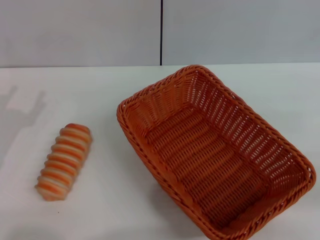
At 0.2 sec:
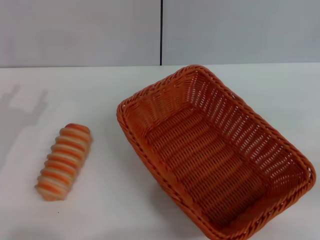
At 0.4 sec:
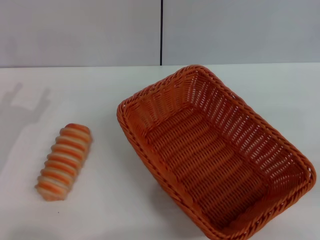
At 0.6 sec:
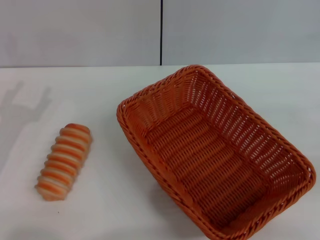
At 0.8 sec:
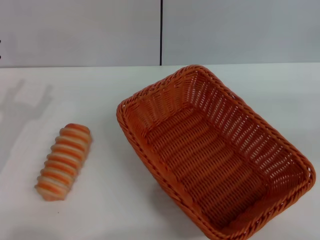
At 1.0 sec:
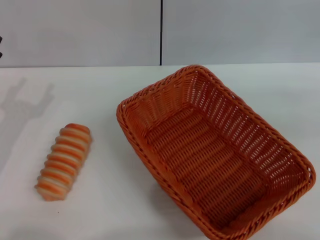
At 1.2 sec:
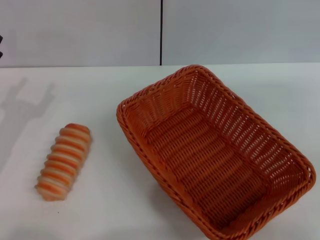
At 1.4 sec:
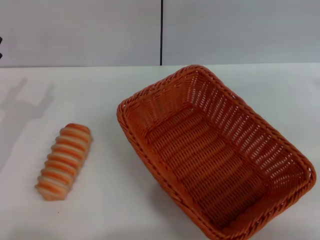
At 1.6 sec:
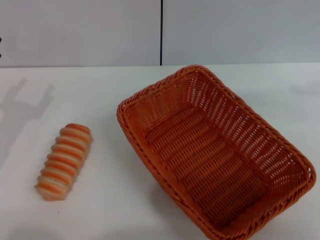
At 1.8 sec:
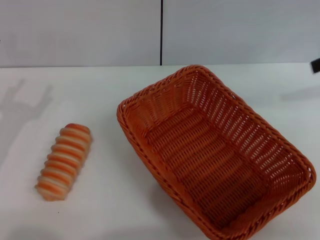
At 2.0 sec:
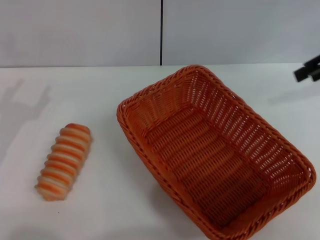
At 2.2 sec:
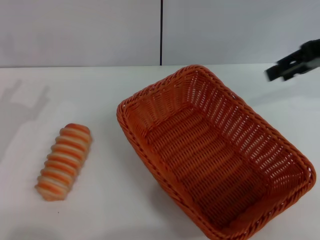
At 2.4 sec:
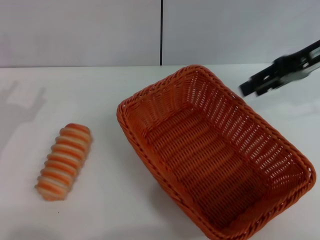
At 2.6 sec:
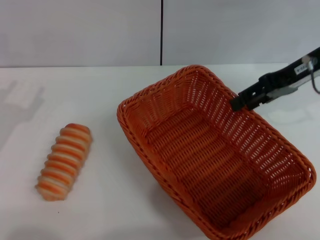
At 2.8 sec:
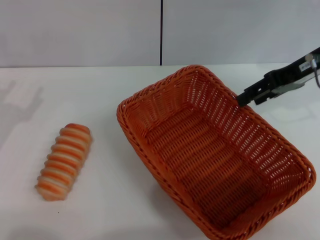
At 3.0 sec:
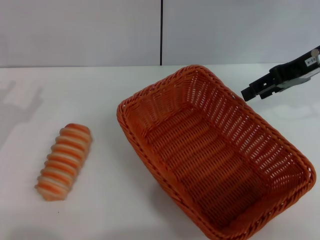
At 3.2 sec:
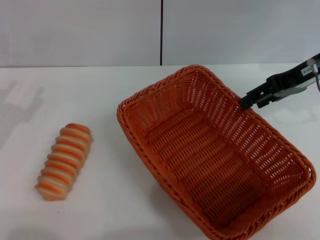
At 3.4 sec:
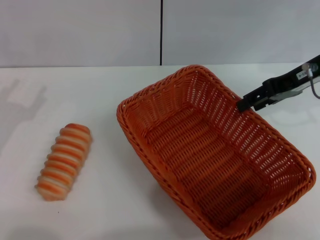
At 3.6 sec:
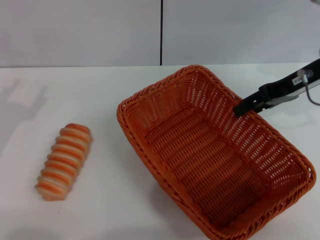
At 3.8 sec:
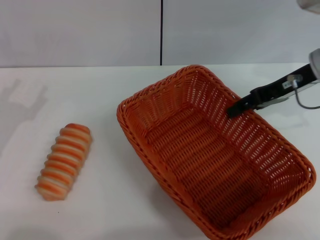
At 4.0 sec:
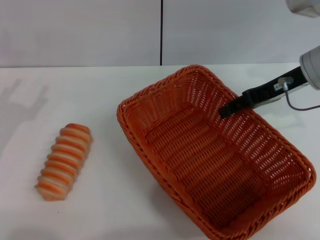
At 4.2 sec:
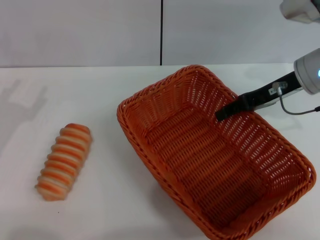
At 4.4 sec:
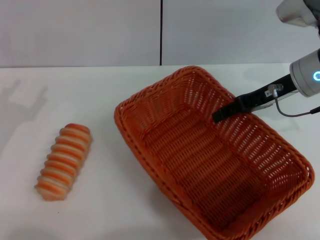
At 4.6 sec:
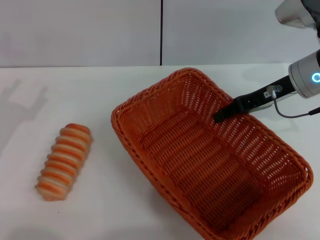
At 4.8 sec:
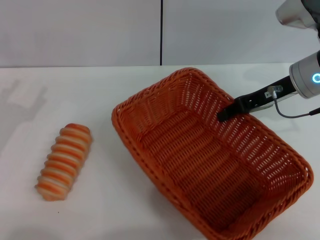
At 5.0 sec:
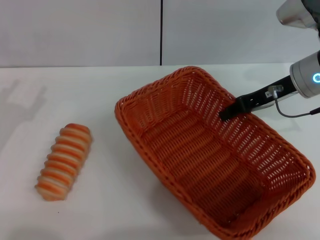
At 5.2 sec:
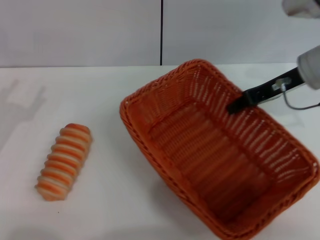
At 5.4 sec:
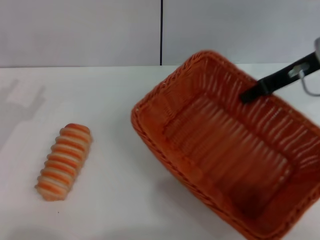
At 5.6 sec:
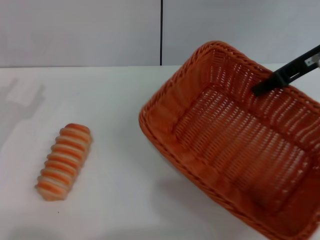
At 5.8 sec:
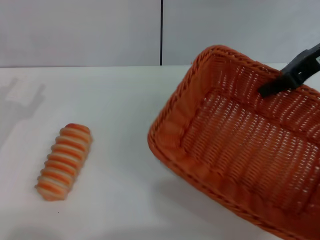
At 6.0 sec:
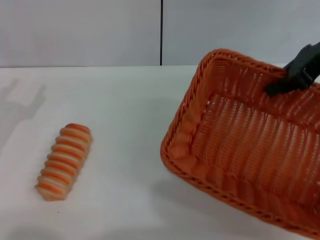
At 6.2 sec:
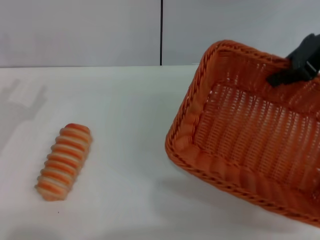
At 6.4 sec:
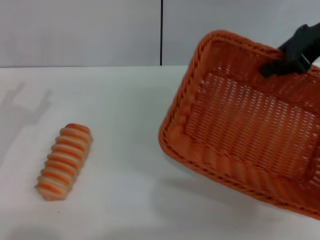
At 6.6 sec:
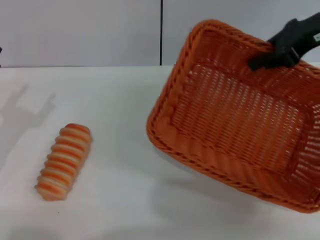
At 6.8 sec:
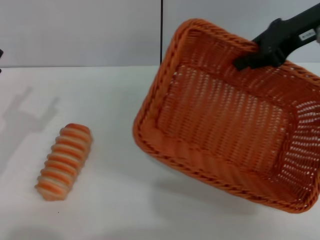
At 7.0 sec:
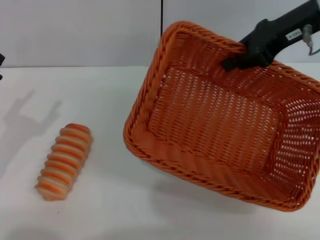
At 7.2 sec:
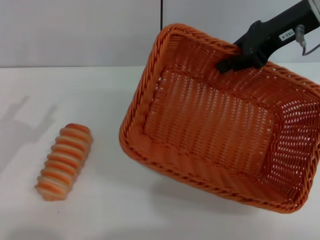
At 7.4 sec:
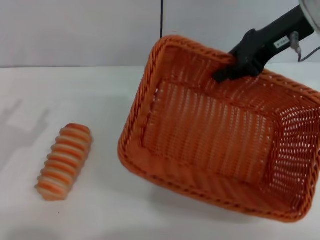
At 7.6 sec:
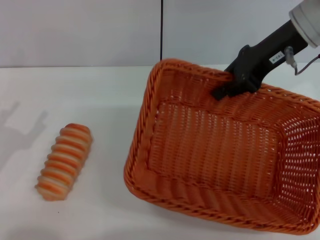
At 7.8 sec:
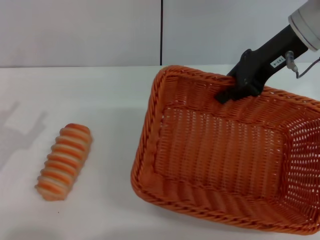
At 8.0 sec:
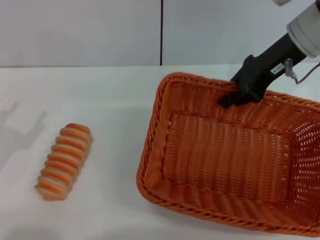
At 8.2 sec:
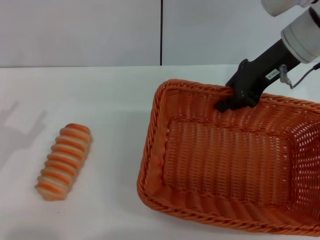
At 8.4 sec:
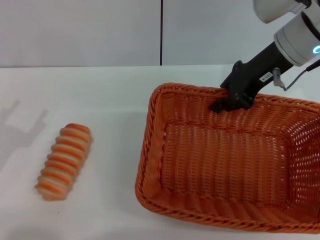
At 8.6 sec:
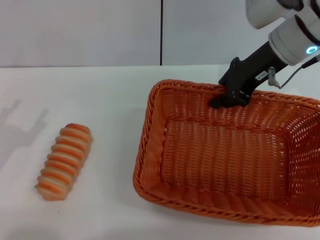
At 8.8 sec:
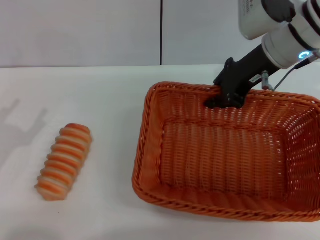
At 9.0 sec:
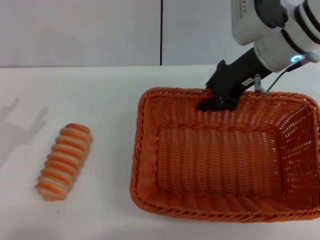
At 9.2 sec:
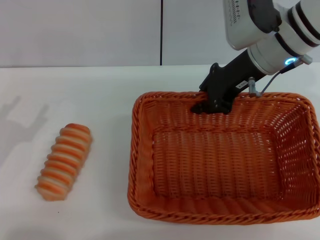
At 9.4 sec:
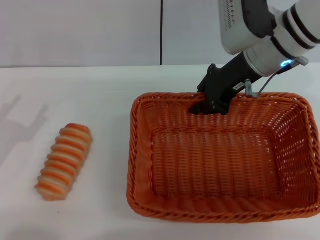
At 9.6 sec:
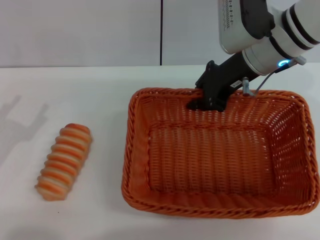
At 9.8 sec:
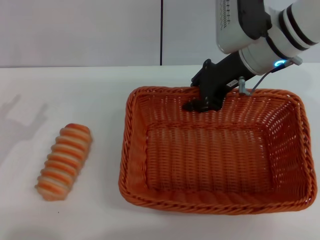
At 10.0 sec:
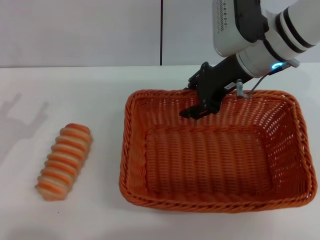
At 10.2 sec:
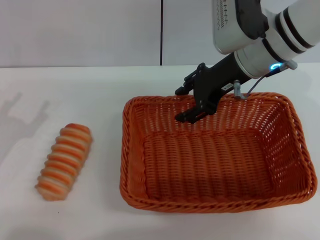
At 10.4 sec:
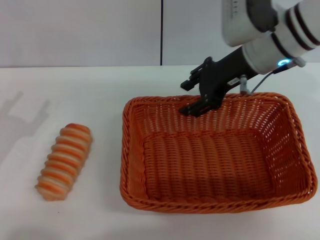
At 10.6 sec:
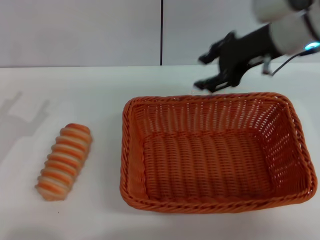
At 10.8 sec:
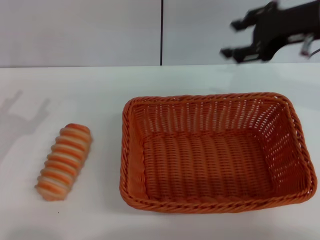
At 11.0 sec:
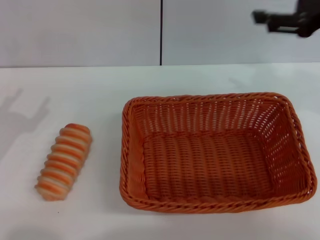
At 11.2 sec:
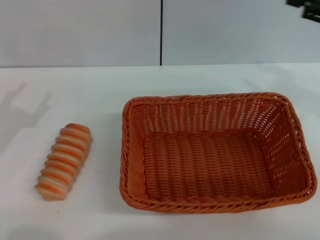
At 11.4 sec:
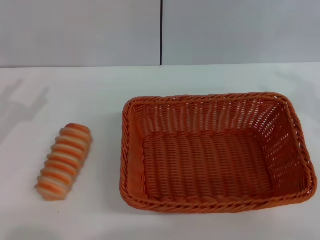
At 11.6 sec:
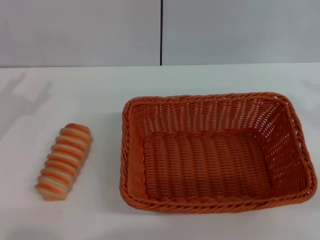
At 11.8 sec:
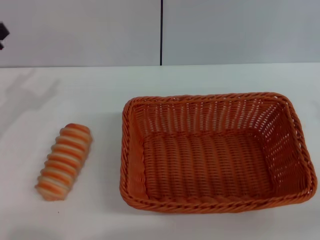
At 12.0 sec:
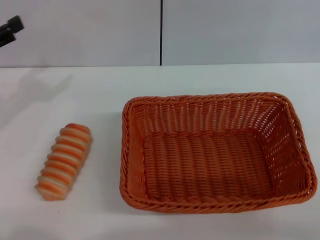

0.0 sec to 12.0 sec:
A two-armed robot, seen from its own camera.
Step, 0.0 sec to 6.6 sec: Pick up the light basket with the right gripper.
Step, 6.8 sec to 10.6 sec: Place the light basket in the center of view with the right gripper.
0.0 sec to 1.6 sec: The right gripper moves forward and upward, some 20 cm.
1.6 sec to 3.0 sec: The right gripper goes roughly 15 cm to the left and downward.
3.0 sec to 4.4 sec: The right gripper is displaced downward by approximately 5 cm.
4.4 sec to 6.0 sec: The right gripper moves upward, some 10 cm, and closes.
6.0 sec to 7.6 sec: The right gripper moves to the left, some 5 cm; the left gripper is displaced backward by some 5 cm.
7.6 sec to 9.0 sec: The right gripper moves some 5 cm.
9.0 sec to 10.4 sec: The right gripper opens up.
10.4 sec to 12.0 sec: The left gripper heads upward and forward, covering approximately 10 cm, while the right gripper travels to the right and backward by roughly 30 cm.

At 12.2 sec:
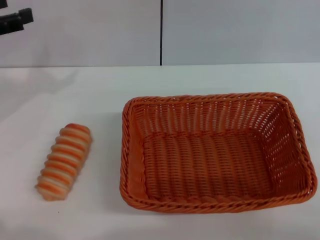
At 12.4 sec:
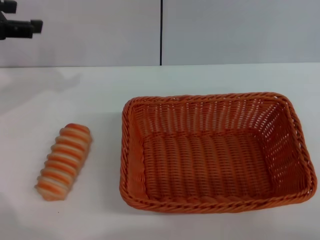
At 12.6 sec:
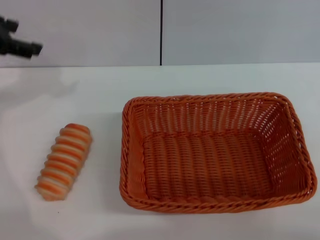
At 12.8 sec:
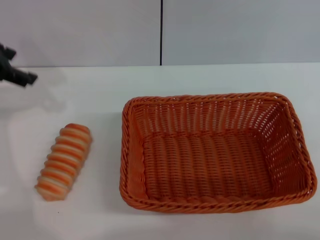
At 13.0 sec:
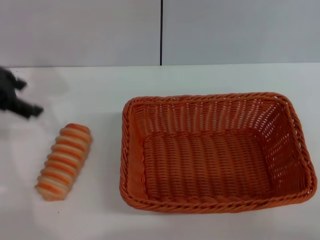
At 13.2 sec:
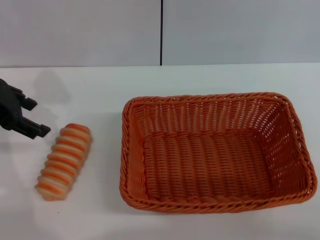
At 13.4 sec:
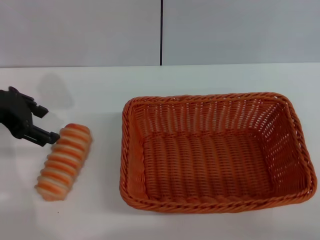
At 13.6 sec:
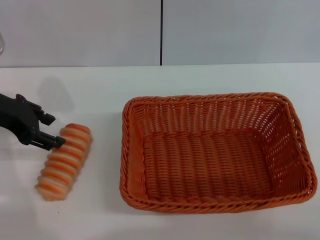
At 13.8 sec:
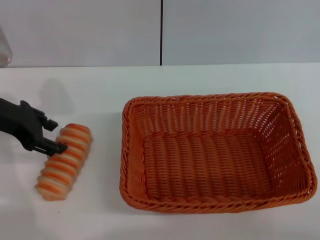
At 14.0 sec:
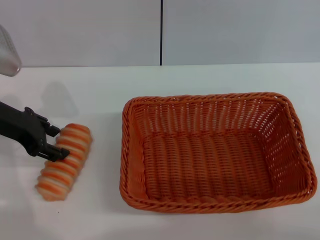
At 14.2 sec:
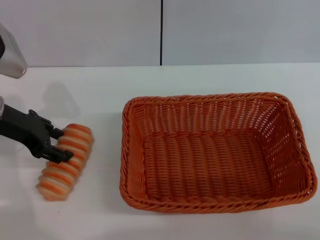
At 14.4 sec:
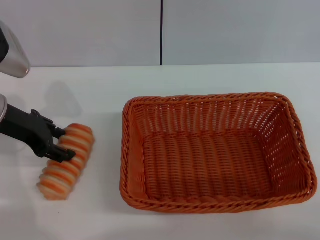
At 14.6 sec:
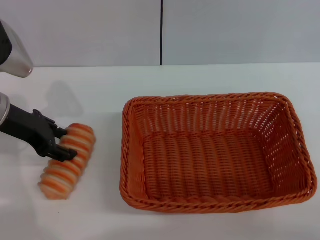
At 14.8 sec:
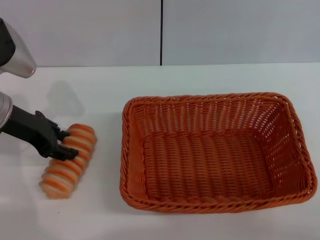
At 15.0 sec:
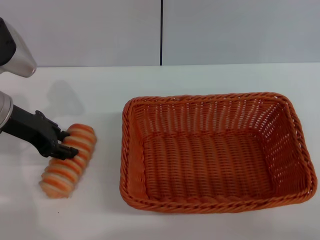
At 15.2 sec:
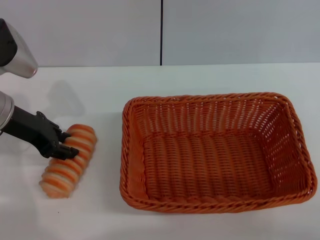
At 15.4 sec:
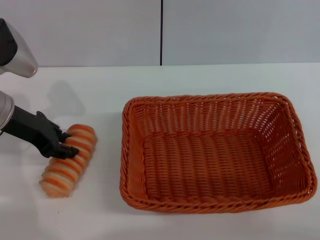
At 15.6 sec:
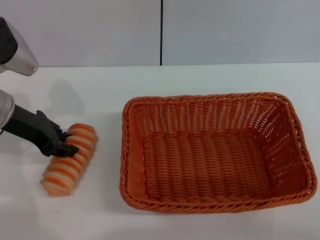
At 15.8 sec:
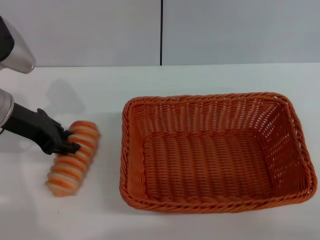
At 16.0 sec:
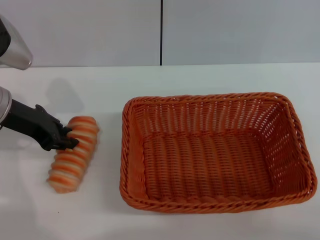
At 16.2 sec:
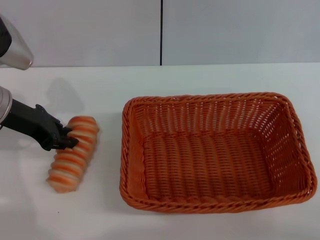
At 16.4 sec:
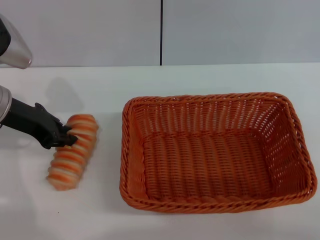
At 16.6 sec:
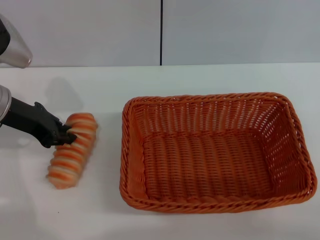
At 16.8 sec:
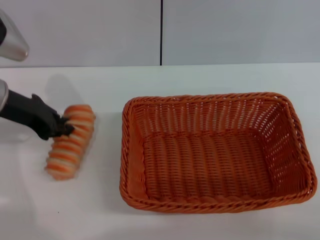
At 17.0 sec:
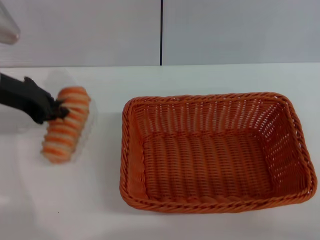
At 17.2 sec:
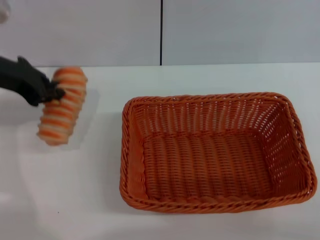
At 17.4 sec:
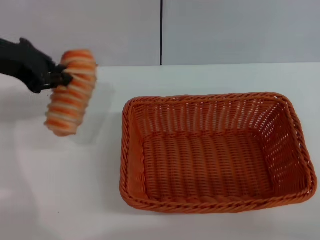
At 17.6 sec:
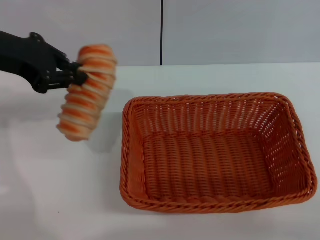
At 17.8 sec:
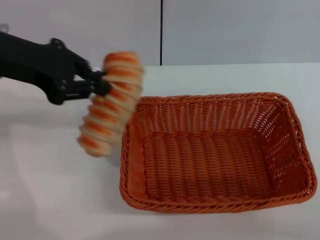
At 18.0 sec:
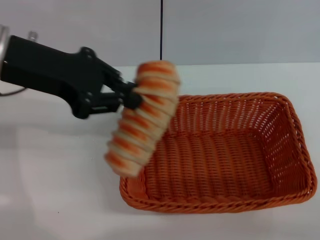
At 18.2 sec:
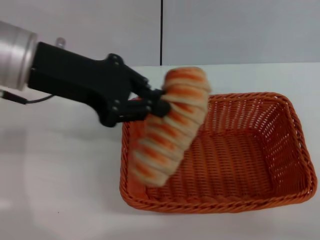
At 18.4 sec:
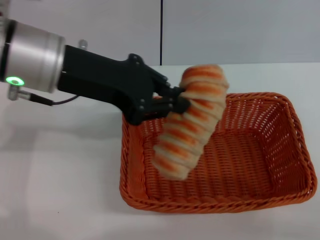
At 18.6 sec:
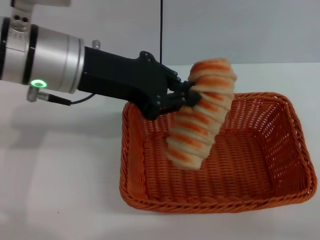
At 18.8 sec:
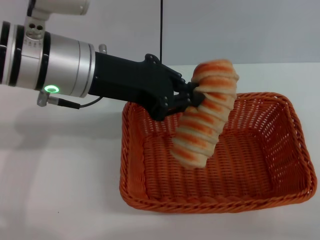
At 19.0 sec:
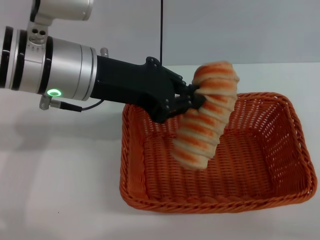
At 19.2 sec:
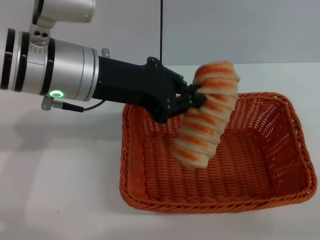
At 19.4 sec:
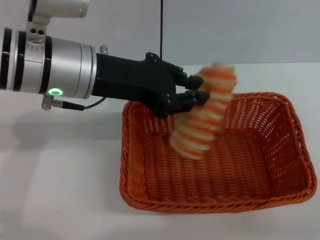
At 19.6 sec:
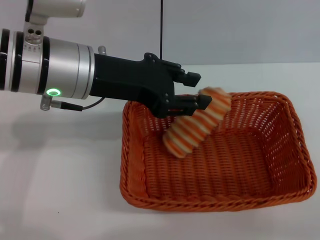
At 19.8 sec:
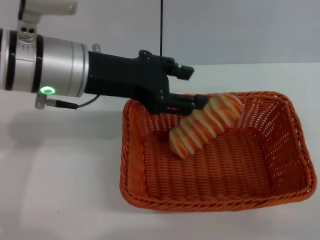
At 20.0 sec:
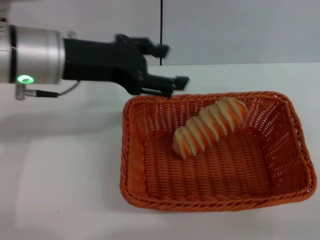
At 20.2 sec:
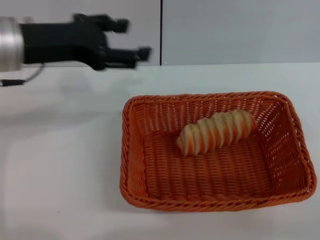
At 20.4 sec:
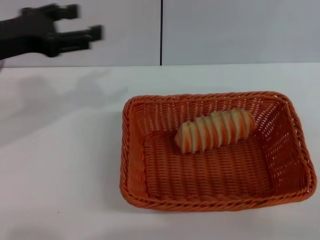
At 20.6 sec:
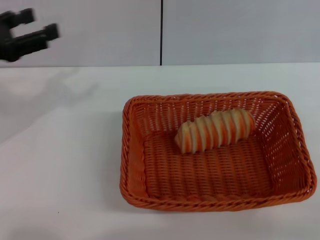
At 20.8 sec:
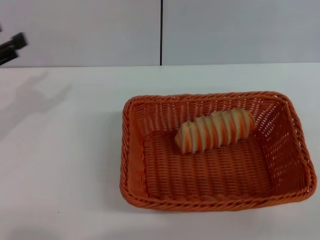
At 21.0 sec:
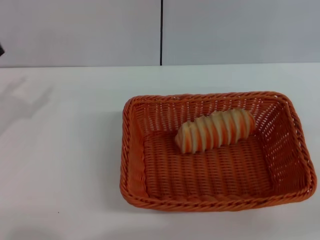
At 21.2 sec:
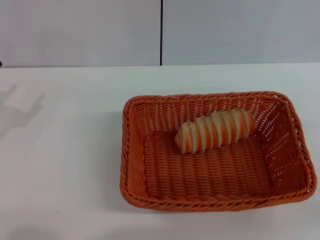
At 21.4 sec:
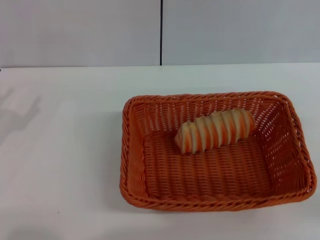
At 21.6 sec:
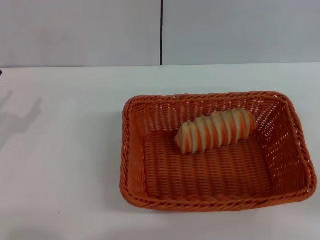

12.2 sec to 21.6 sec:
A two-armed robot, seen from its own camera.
Step, 12.2 sec to 17.4 sec: Pick up the long bread with the left gripper.
Step, 17.6 sec to 19.8 sec: Place the long bread into the light basket with the left gripper.
12.2 sec to 13.8 sec: The left gripper shifts some 5 cm to the right, and reaches roughly 5 cm upward, then returns.
13.8 sec to 15.4 sec: The left gripper closes its fingers.
15.4 sec to 17.0 sec: The left gripper closes.
17.0 sec to 18.4 sec: The left gripper moves to the right and upward, roughly 10 cm.
18.4 sec to 20.0 sec: The left gripper opens its fingers.
20.0 sec to 21.6 sec: The left gripper is displaced to the left, downward and backward by about 25 cm.
